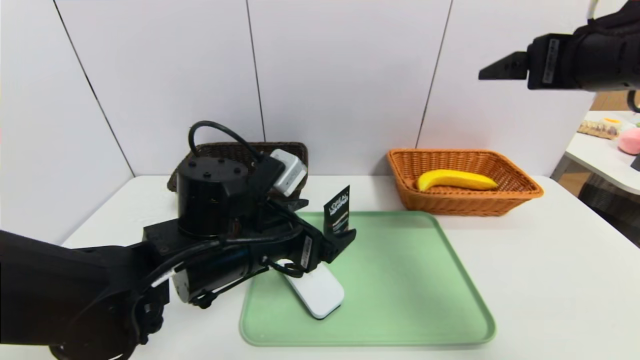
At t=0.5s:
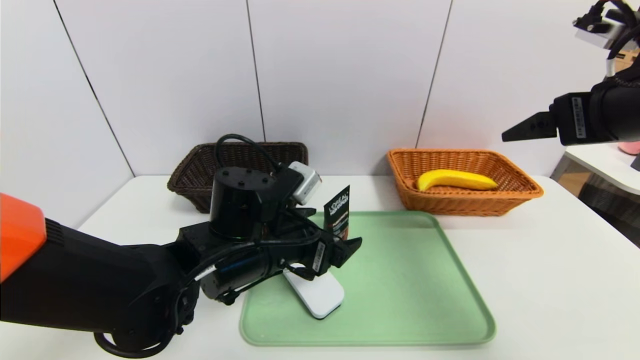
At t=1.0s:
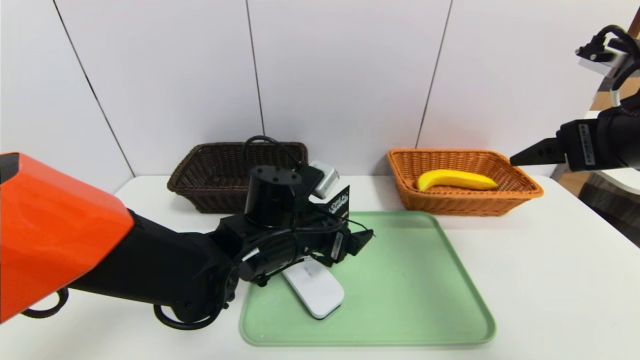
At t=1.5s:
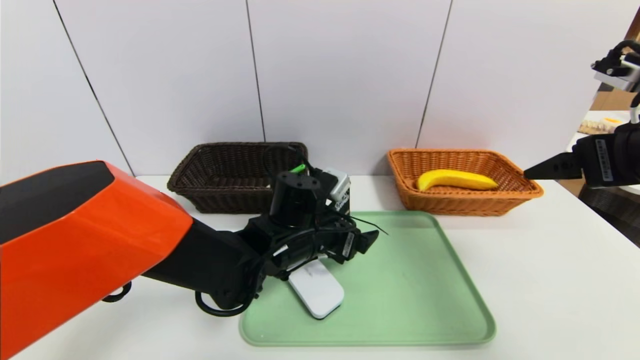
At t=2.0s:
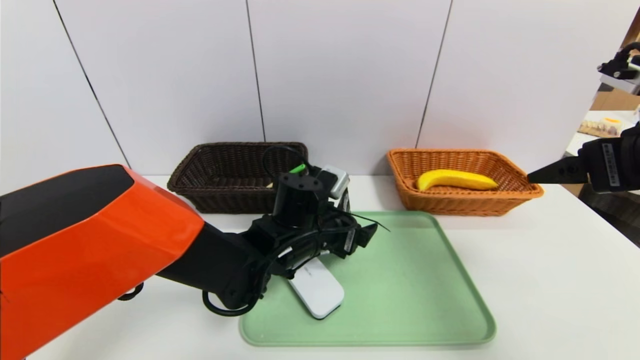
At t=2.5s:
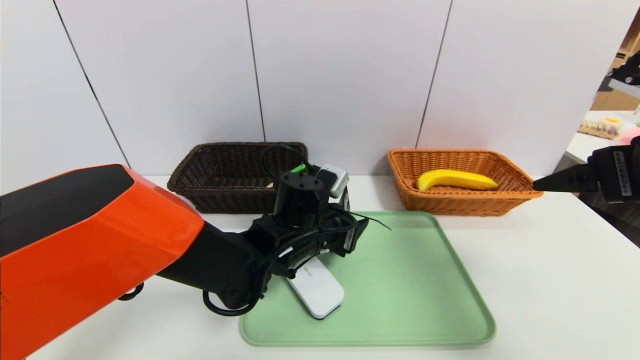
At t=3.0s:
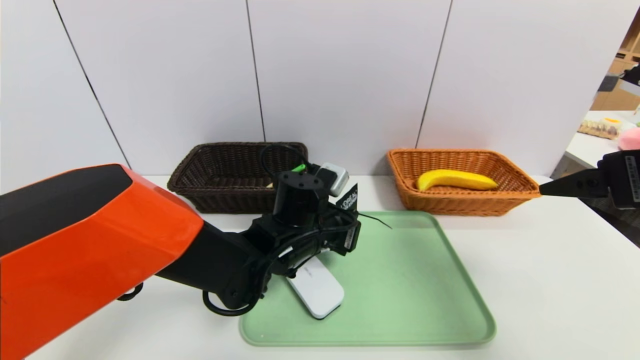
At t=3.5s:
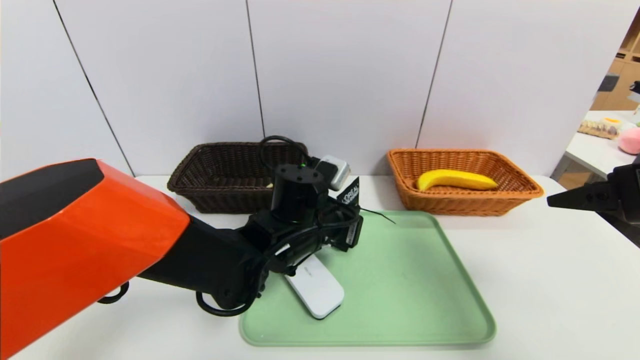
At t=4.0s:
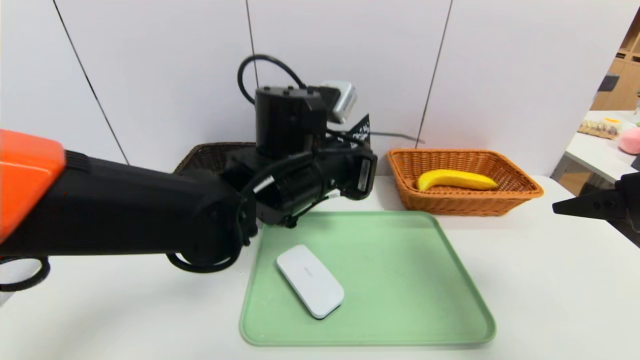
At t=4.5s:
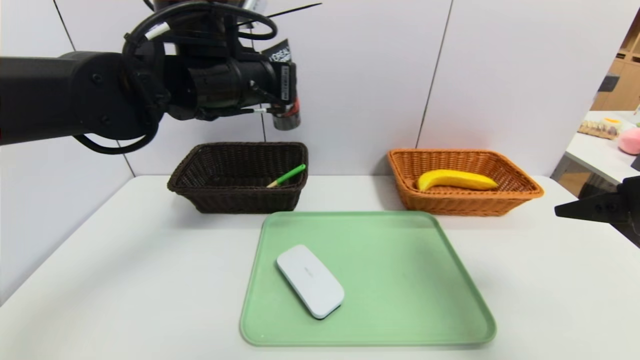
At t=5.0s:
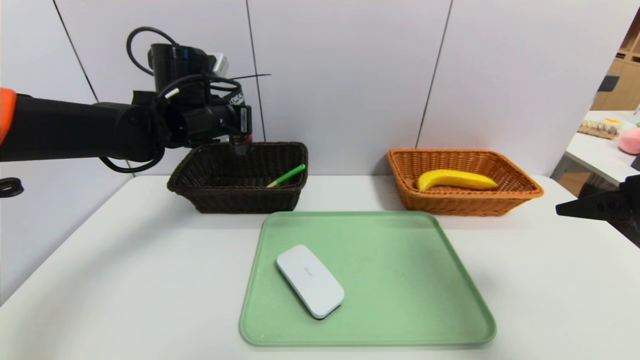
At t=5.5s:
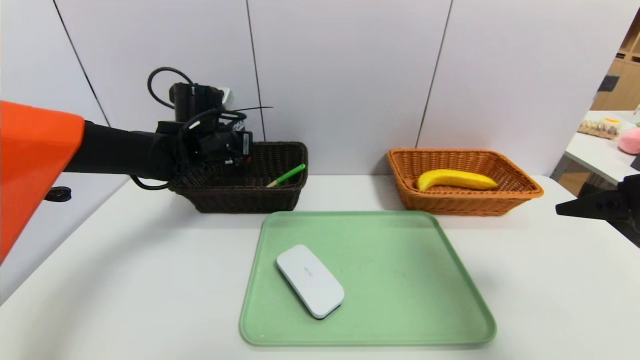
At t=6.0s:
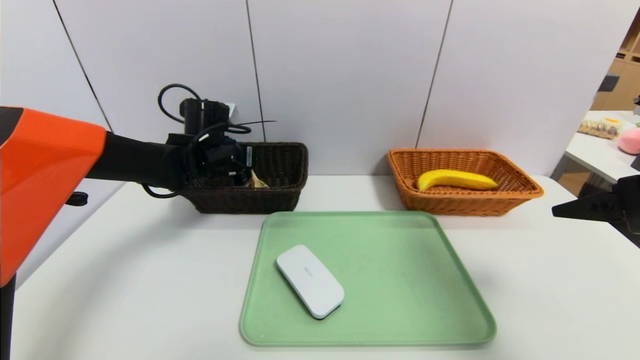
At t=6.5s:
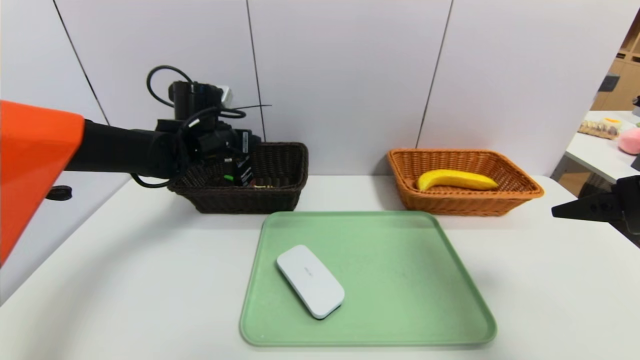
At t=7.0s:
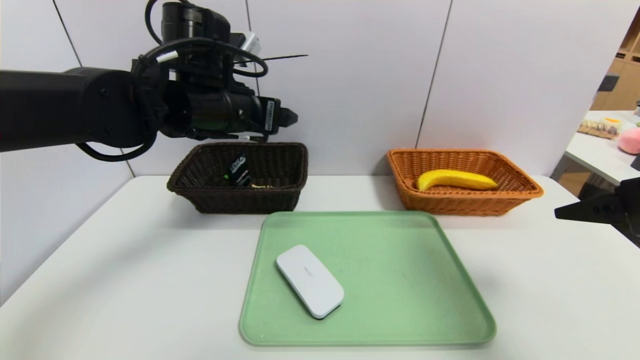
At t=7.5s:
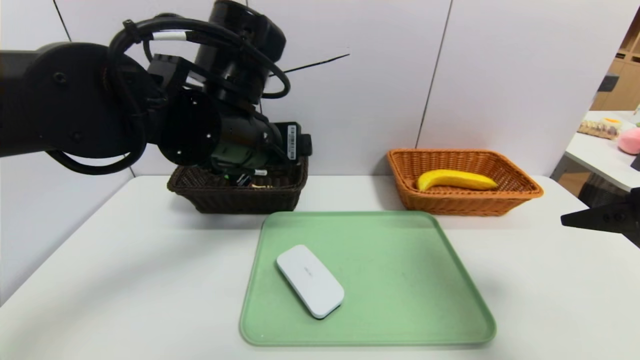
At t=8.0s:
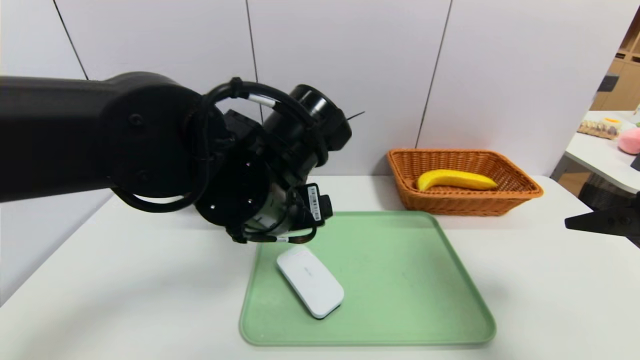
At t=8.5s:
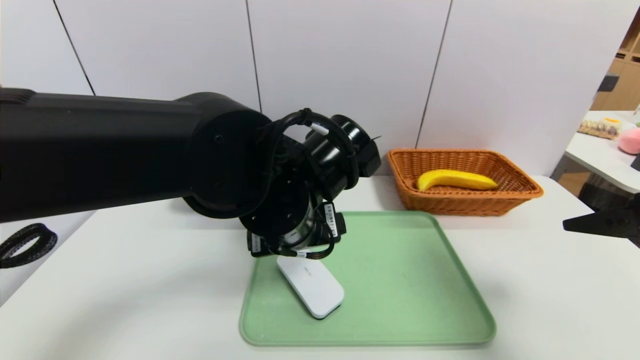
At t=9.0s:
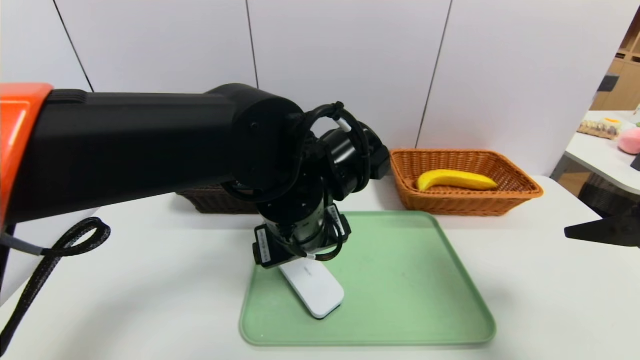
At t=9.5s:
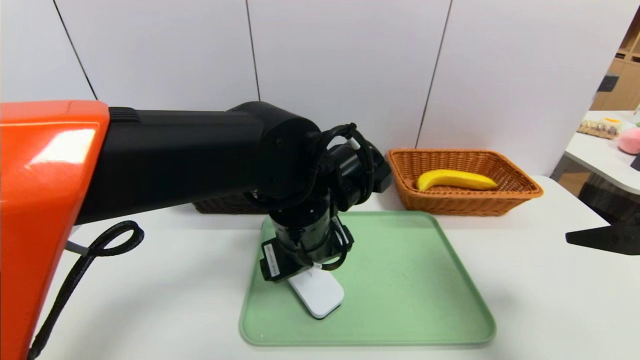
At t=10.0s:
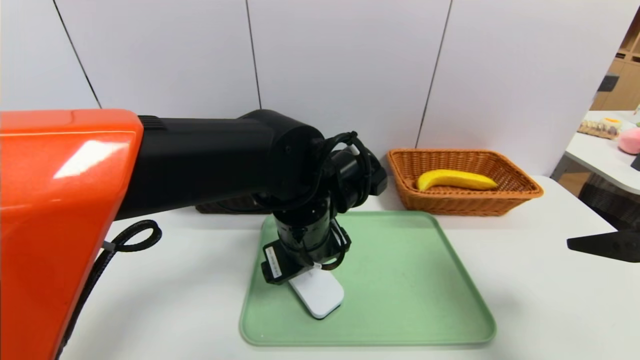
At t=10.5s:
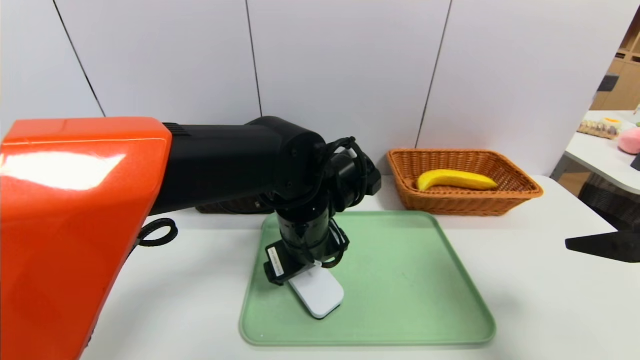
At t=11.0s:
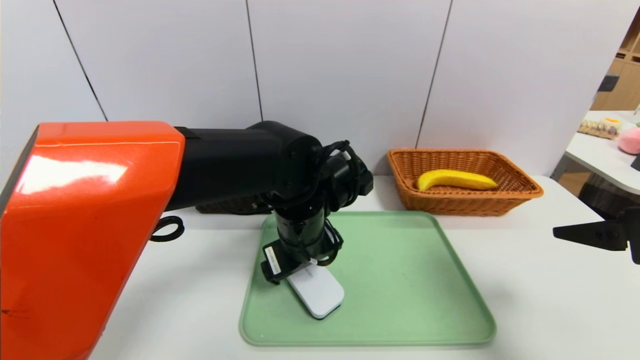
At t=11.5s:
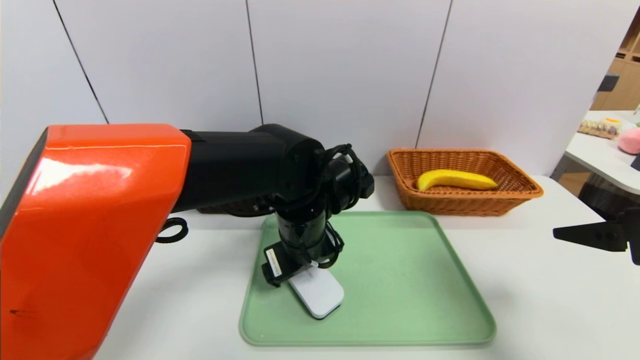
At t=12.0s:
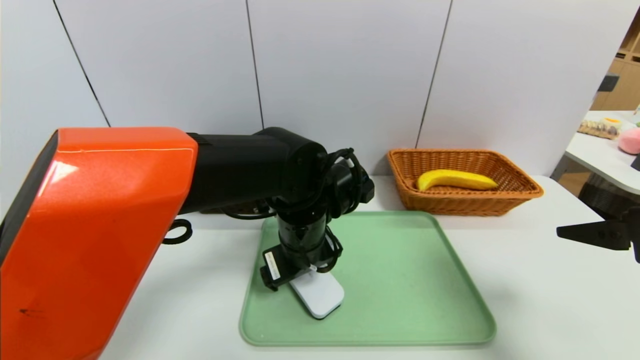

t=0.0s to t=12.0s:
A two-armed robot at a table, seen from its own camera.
Task of the whole recording: place the food in the right basket with the right gripper, and place the non food items in the left basket with the left gripper.
Step, t=0.0s to t=7.0s: Grasp the soft cleanser and put it in the left basket.
t=0.0s to t=2.0s: The right gripper moves downward, roughly 5 cm. Meanwhile the left gripper travels forward, to the right and downward by roughly 10 cm.
t=2.0s to t=4.0s: The left gripper heads upward, covering about 15 cm, and closes.
t=4.0s to t=6.0s: The left gripper is displaced to the left, forward and downward by roughly 25 cm, and opens its fingers.
t=6.0s to t=8.0s: The left gripper is displaced backward and to the right by some 25 cm, and opens up.
t=8.0s to t=10.0s: The left gripper heads downward, covering about 5 cm.
t=10.0s to t=12.0s: The grippers stay close to where they were, moving slightly.

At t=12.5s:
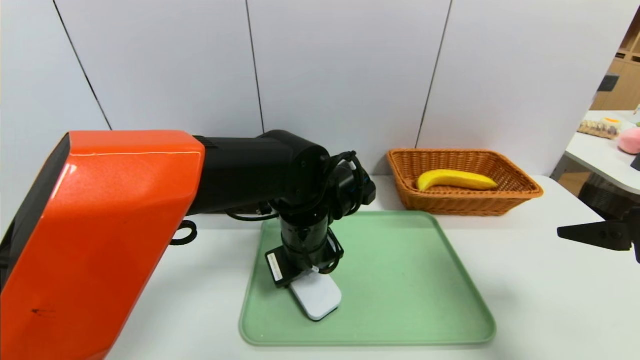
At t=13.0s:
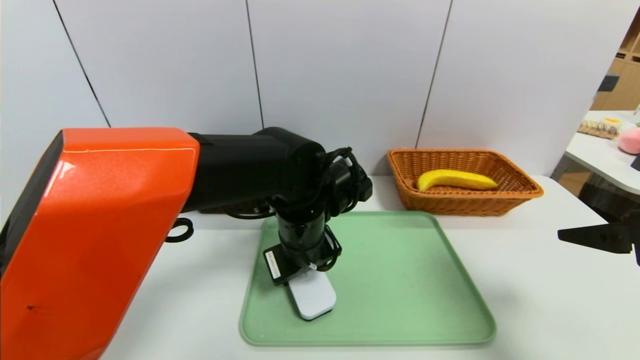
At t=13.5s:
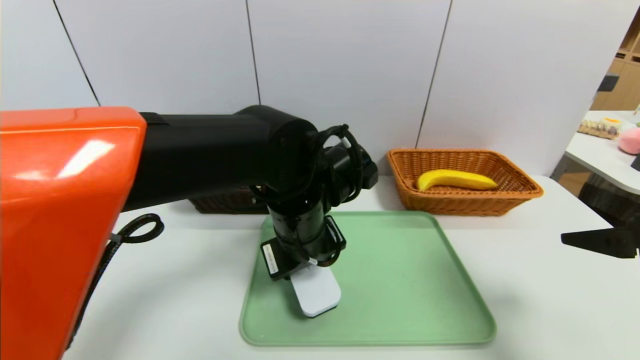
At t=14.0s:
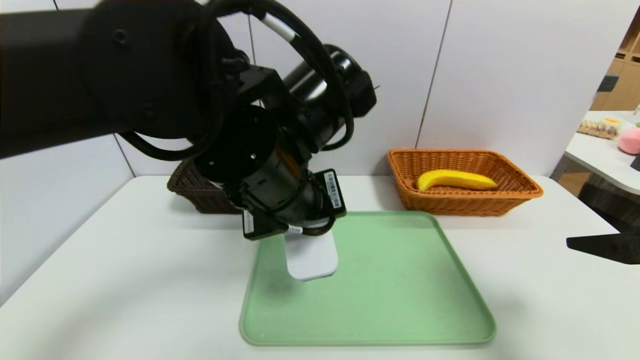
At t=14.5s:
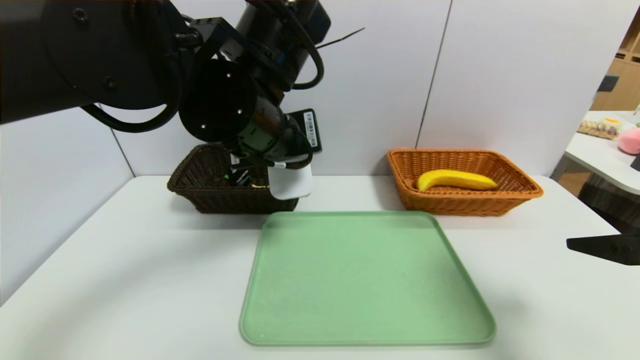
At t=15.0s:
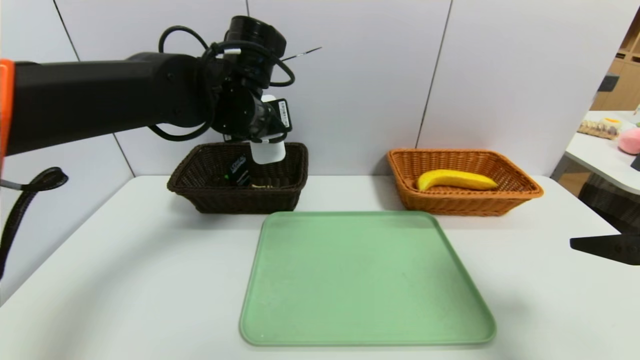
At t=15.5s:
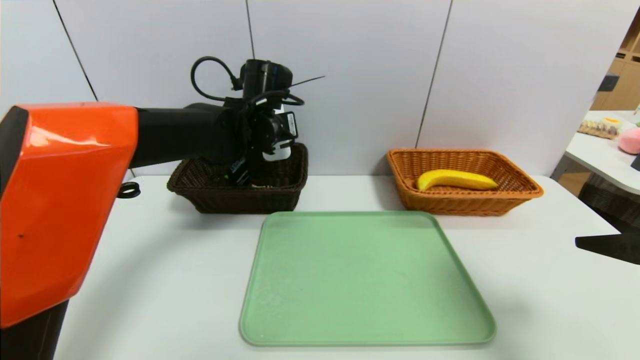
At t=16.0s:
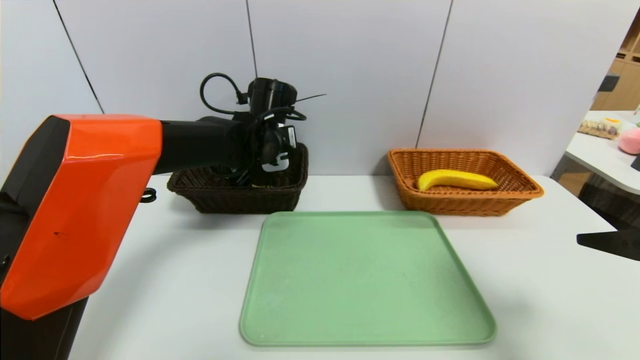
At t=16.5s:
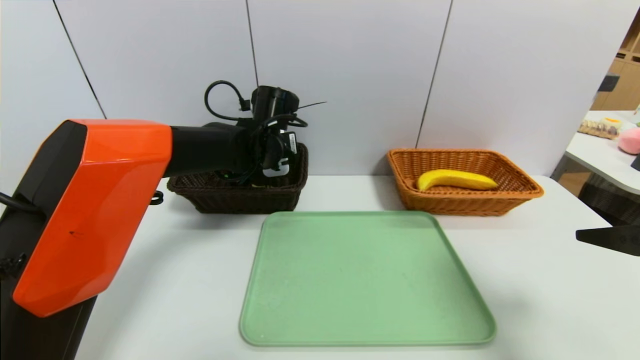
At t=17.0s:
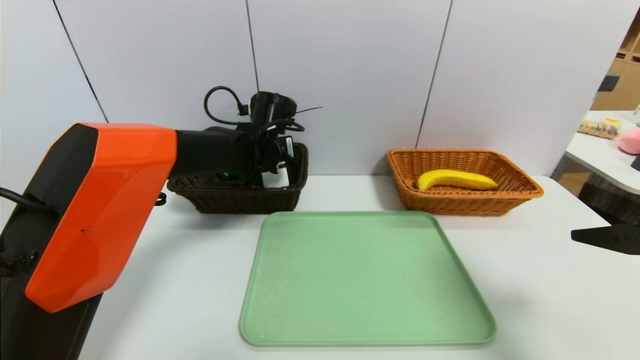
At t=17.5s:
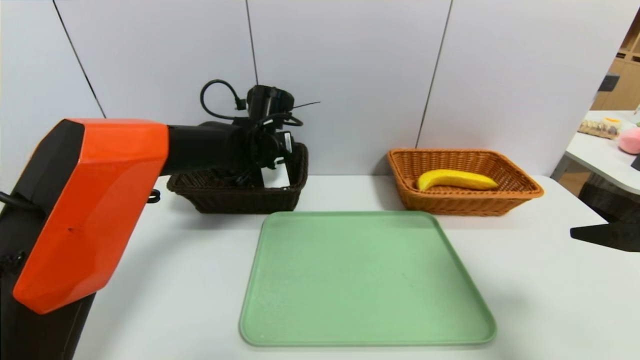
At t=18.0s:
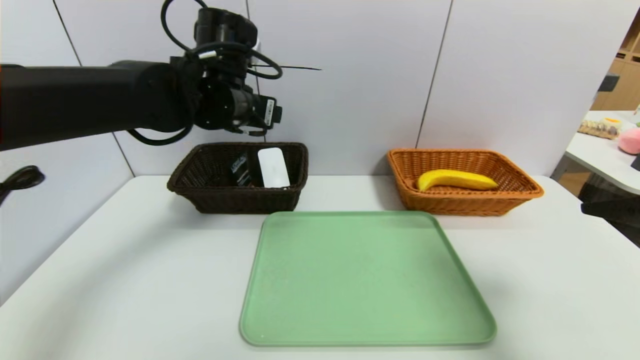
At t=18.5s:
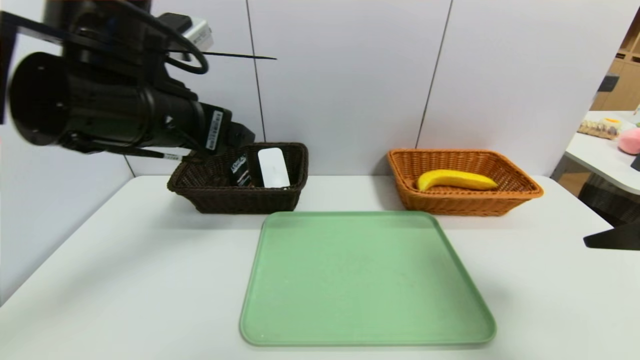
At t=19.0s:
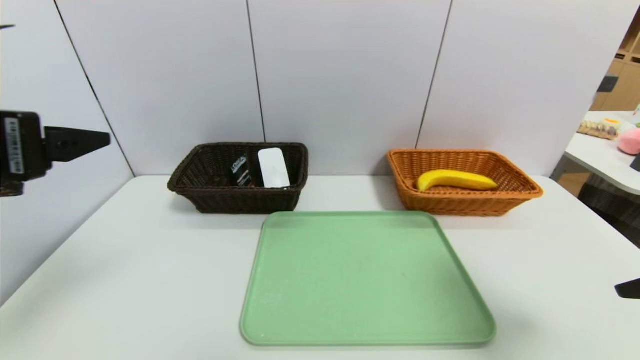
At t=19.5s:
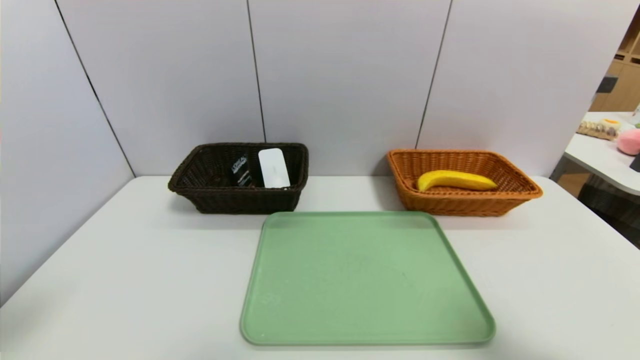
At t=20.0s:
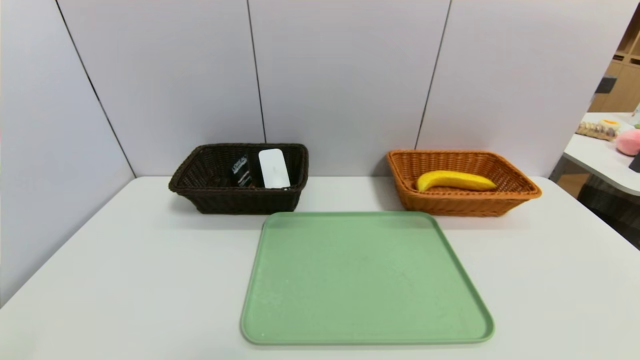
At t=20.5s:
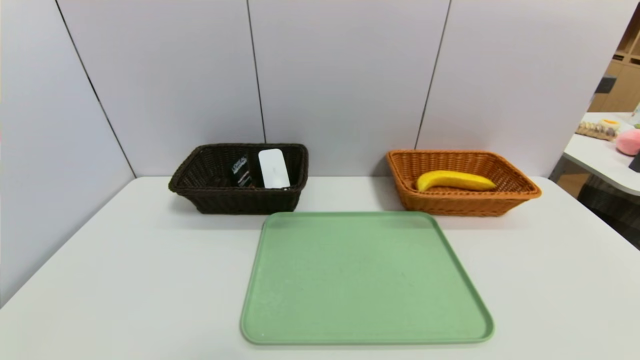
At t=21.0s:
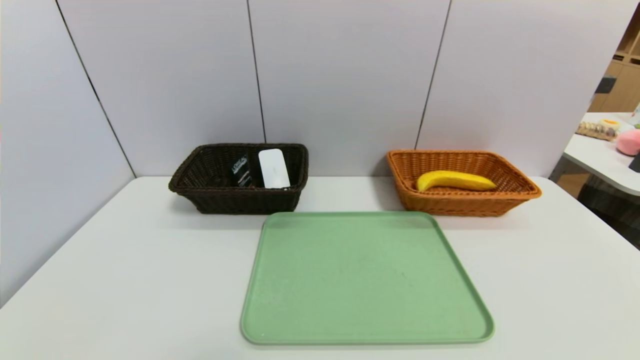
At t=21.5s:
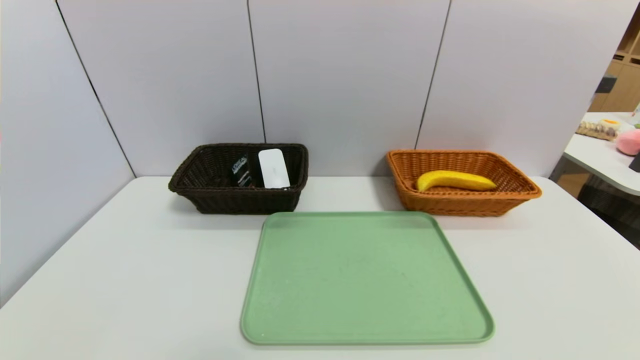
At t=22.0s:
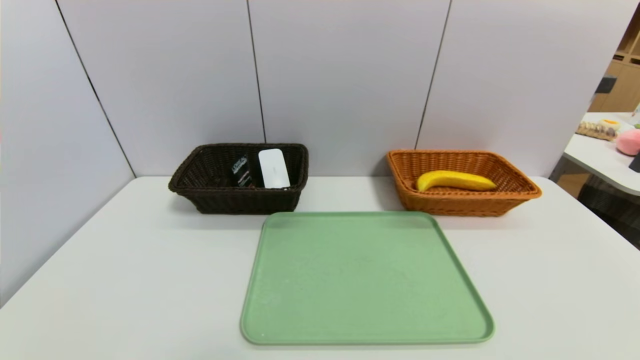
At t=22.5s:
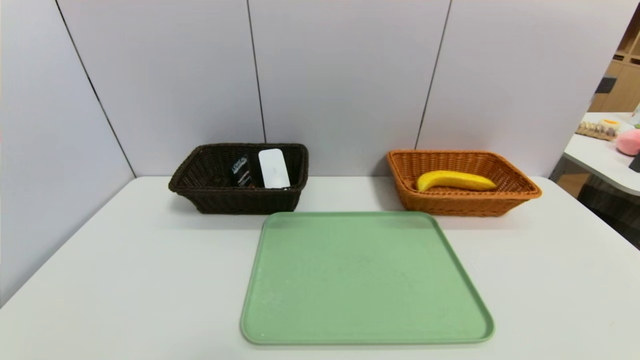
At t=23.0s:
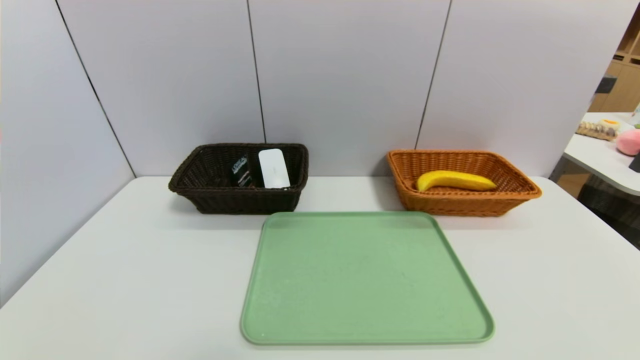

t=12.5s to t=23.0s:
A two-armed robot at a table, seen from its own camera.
Task of the whole recording: place the food in the right basket with the right gripper, and place the non food items in the left basket with the left gripper.
Step, t=12.5s to t=18.0s: Grasp the white eraser and put it in the left basket.
t=12.5s to t=14.5s: The left gripper goes some 15 cm upward.
t=14.5s to t=16.5s: The left gripper travels forward and downward by about 20 cm.
t=16.5s to t=19.0s: The left gripper heads backward, to the left and upward, covering some 35 cm, and opens its fingers.
t=19.0s to t=21.0s: The right gripper shifts approximately 25 cm backward and downward, while the left gripper shifts roughly 30 cm downward and backward.
